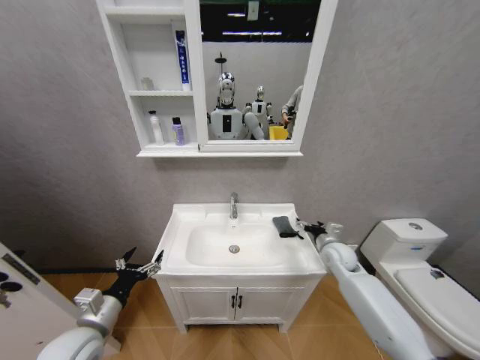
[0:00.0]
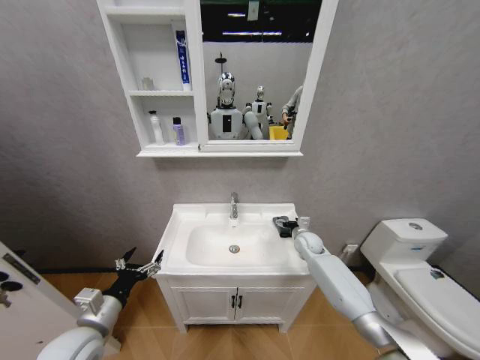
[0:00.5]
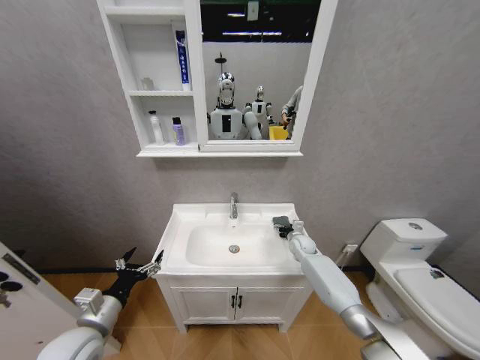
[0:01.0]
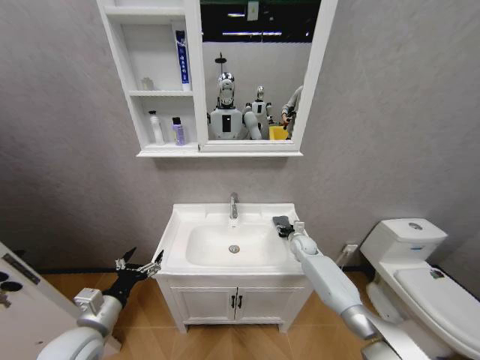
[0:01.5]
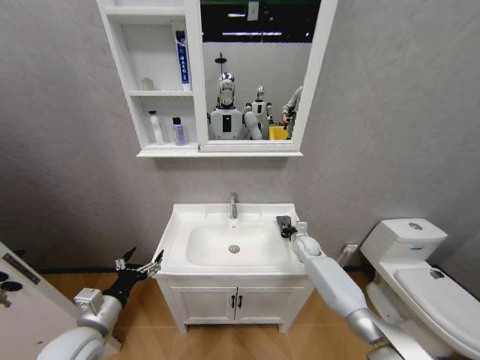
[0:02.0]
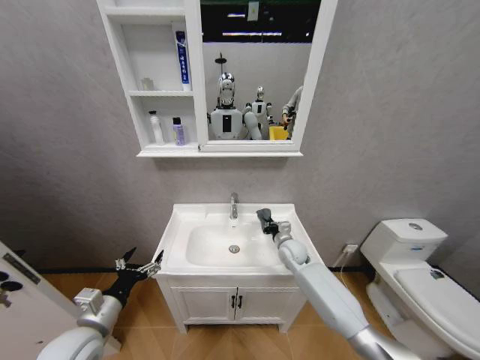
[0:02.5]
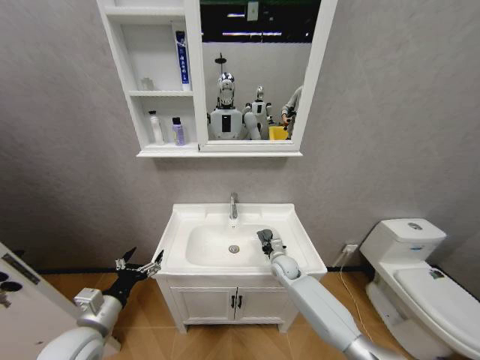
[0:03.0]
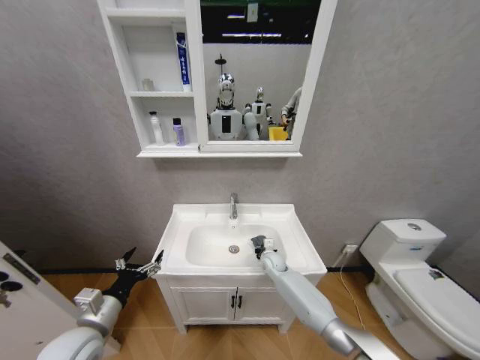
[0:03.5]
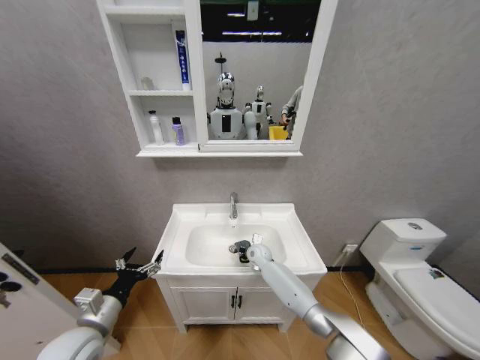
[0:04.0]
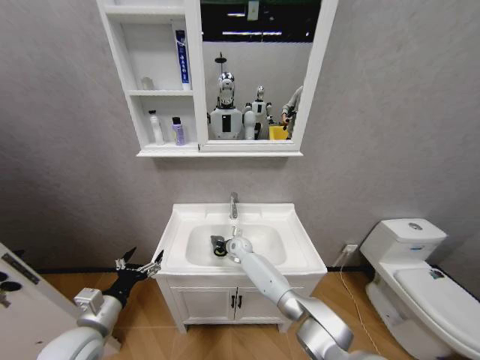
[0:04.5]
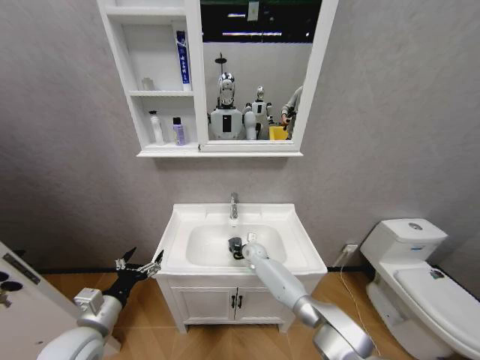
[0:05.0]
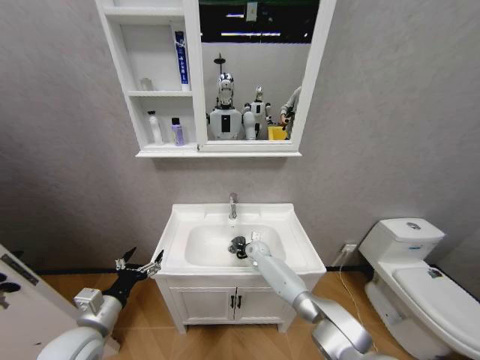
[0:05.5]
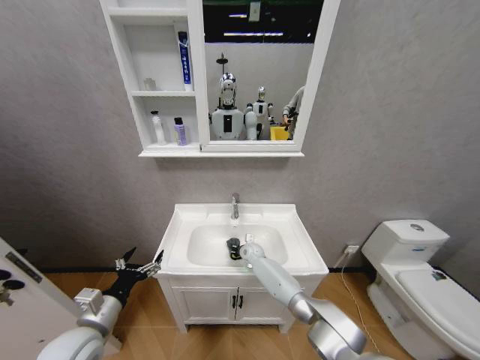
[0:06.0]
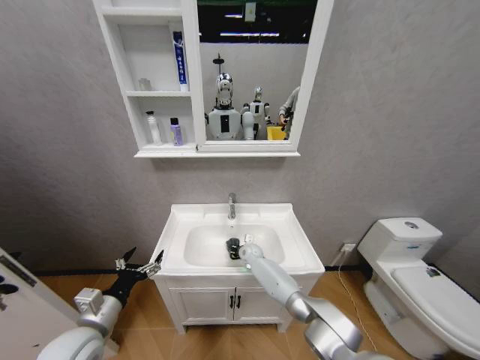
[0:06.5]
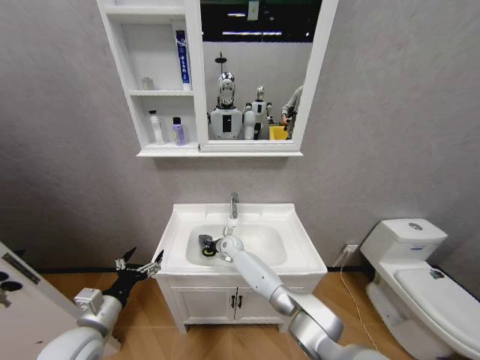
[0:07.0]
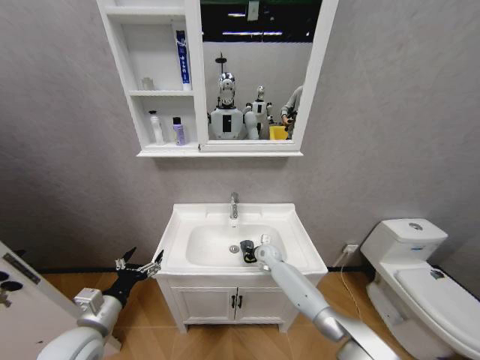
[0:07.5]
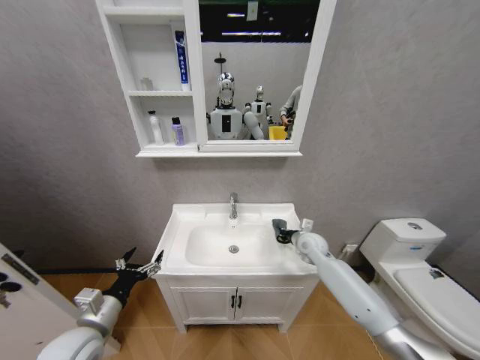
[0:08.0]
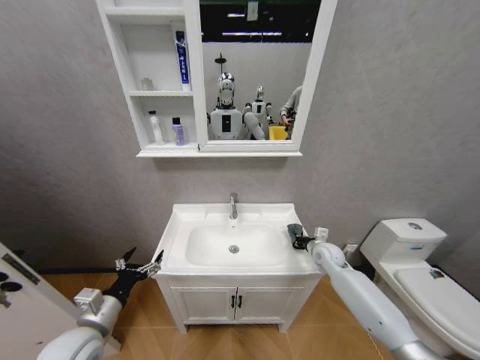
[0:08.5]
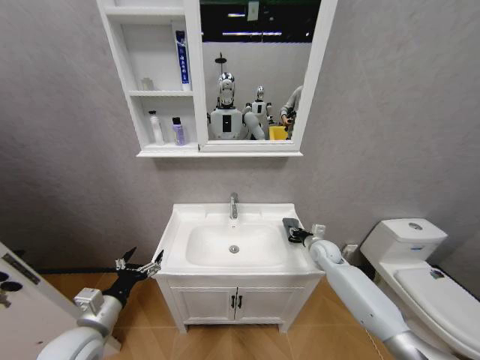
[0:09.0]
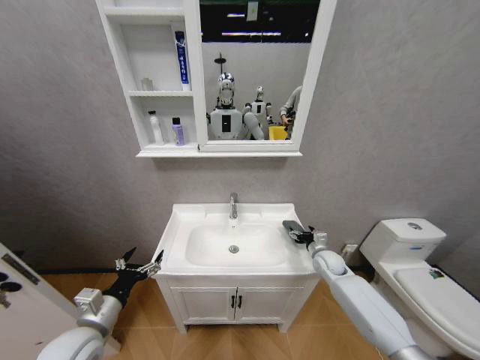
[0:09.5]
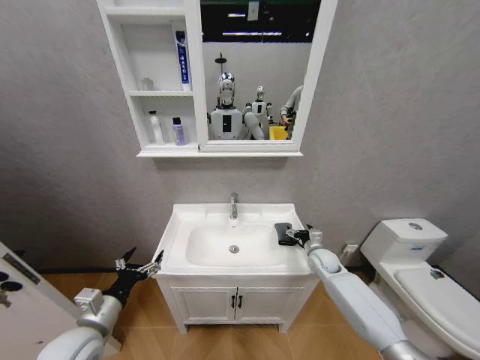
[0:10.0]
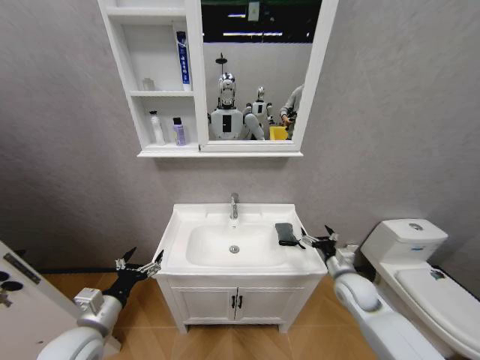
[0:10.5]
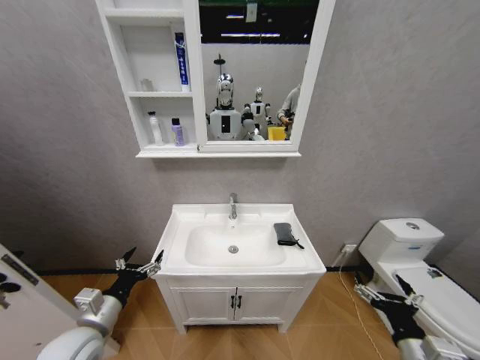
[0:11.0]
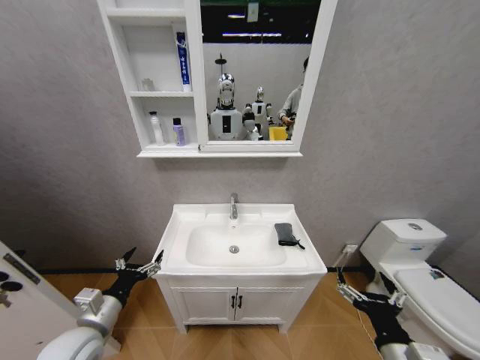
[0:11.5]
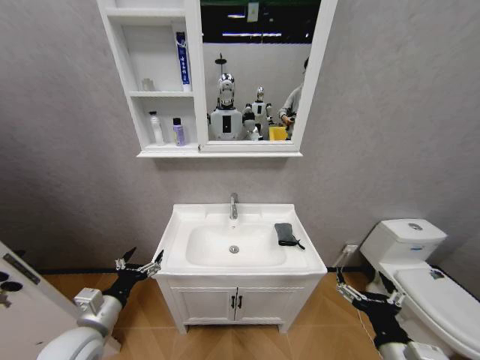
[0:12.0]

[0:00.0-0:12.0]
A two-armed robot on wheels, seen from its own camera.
Task of the whole recording: Move facial cleanser and shampoo from washbasin to cabinet, then wipe washbasin with towel.
0:00.0 to 0:02.0: The right gripper is displaced forward and downward by about 15 cm, and closes.
0:02.0 to 0:04.0: The right gripper travels to the left by some 20 cm.
0:04.0 to 0:06.0: The right gripper travels to the left and back again, roughly 10 cm each way.
0:06.0 to 0:08.0: The right gripper shifts roughly 25 cm to the right and upward.
0:08.0 to 0:10.0: The right gripper shifts about 5 cm downward, and opens.
0:10.0 to 0:12.0: The right gripper heads backward, covering approximately 35 cm.

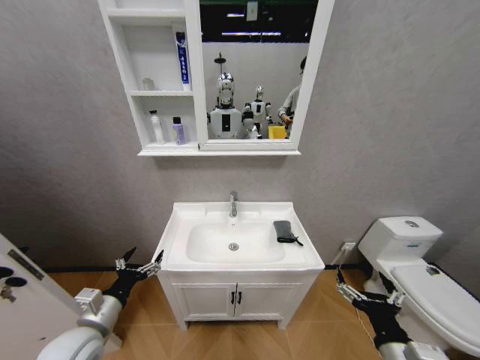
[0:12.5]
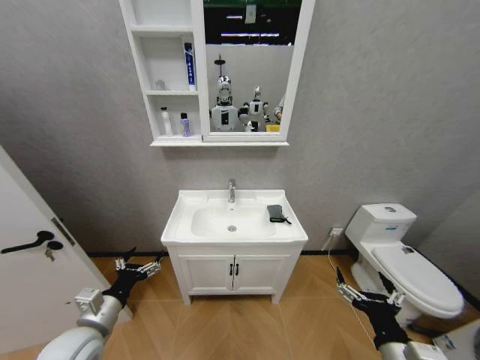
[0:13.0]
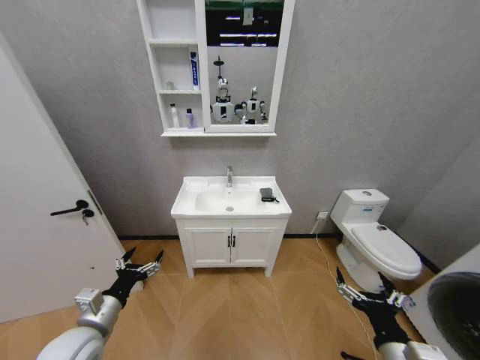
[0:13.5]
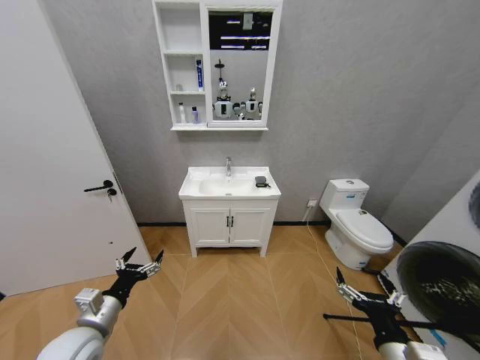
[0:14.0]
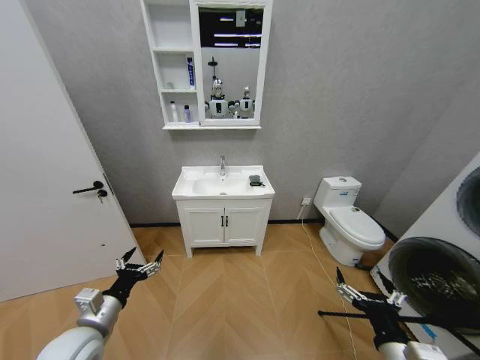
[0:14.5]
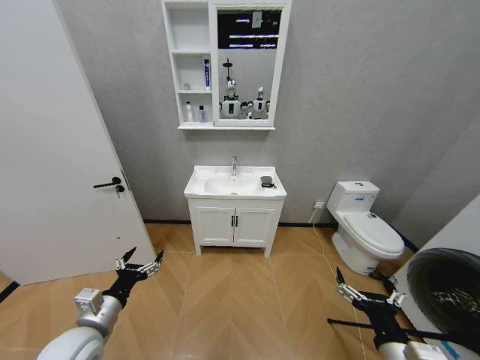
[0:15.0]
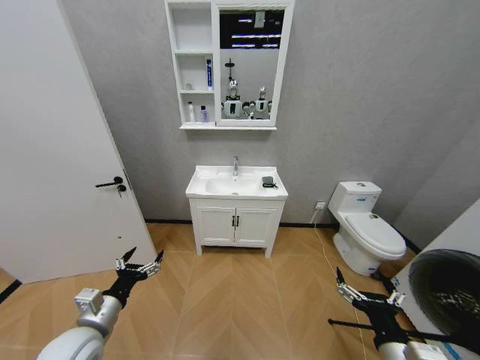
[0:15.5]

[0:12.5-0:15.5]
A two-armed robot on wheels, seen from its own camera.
Task of the whole recording: Move facial cleanser and shampoo from washbasin to cabinet, then wipe washbasin with towel.
0:14.0 to 0:15.5: Neither gripper changes place.

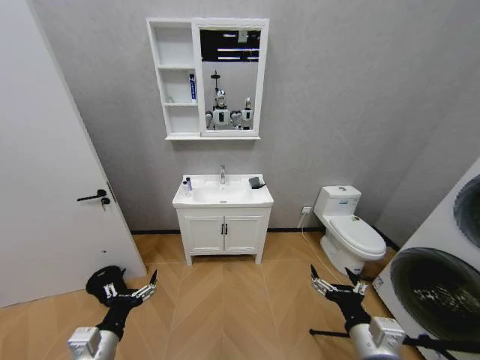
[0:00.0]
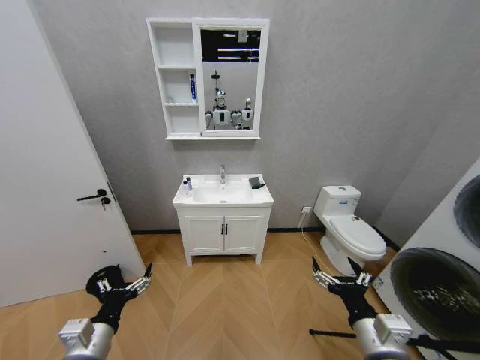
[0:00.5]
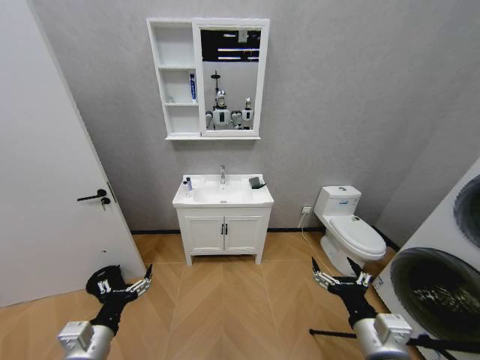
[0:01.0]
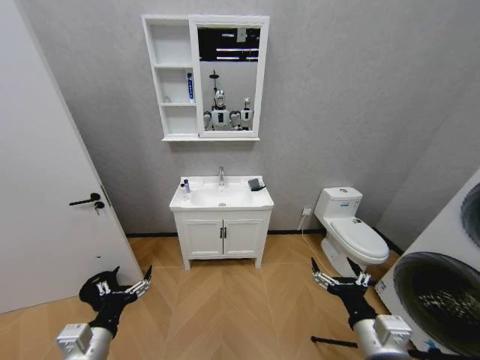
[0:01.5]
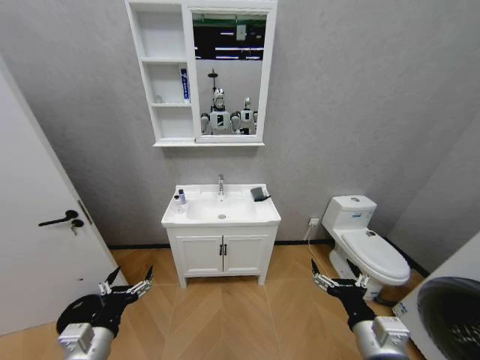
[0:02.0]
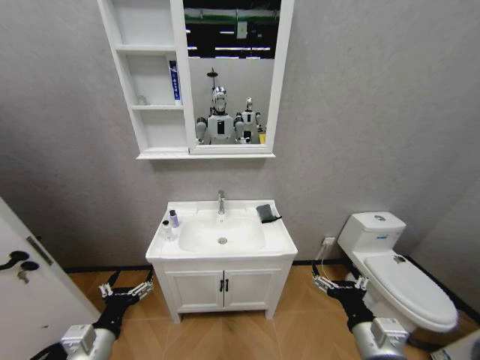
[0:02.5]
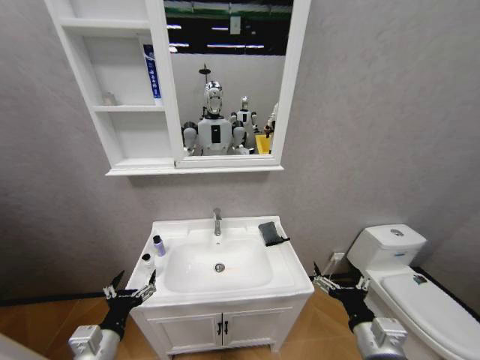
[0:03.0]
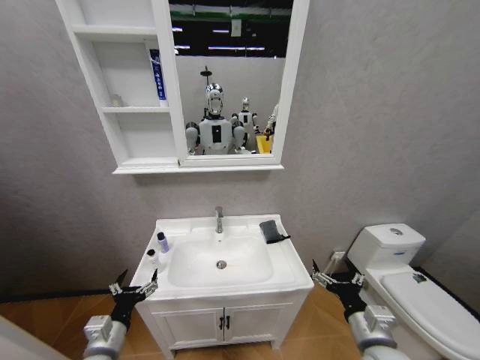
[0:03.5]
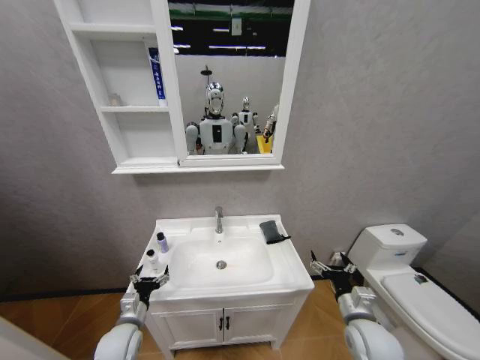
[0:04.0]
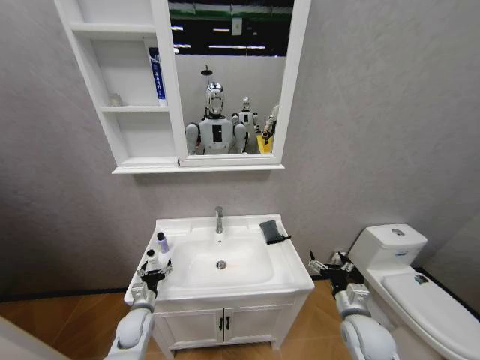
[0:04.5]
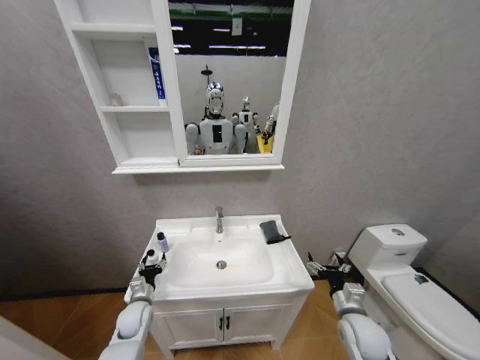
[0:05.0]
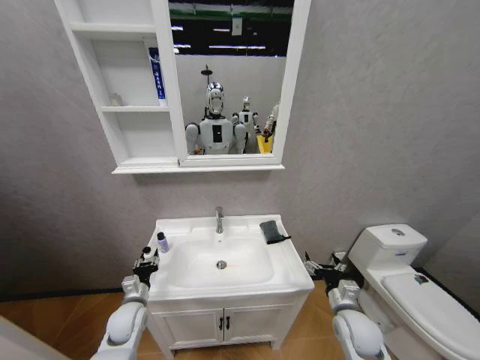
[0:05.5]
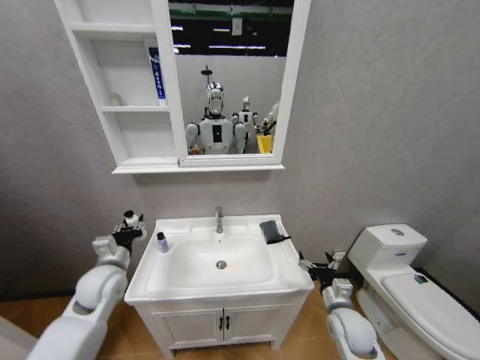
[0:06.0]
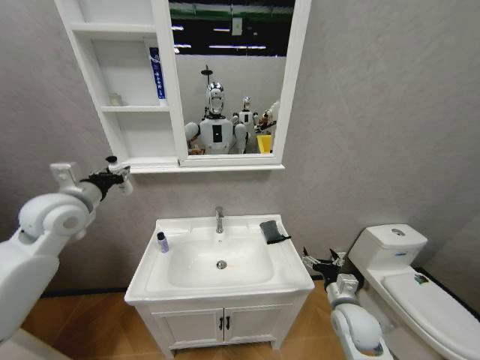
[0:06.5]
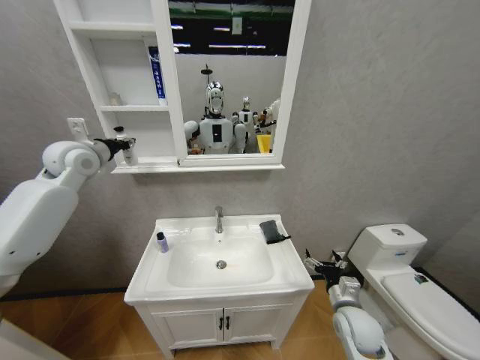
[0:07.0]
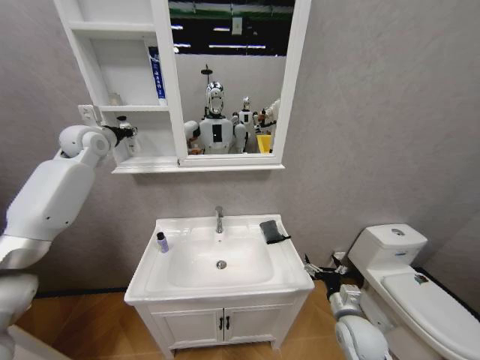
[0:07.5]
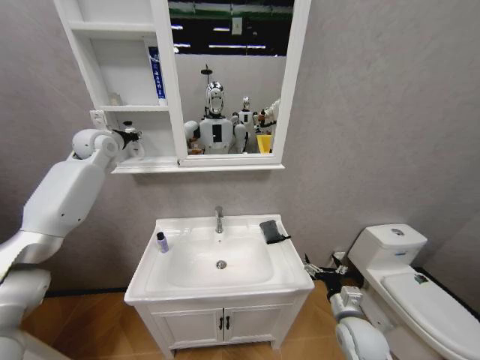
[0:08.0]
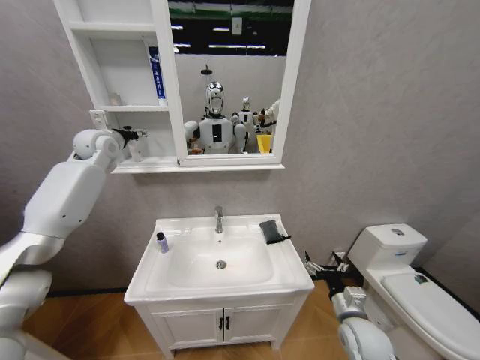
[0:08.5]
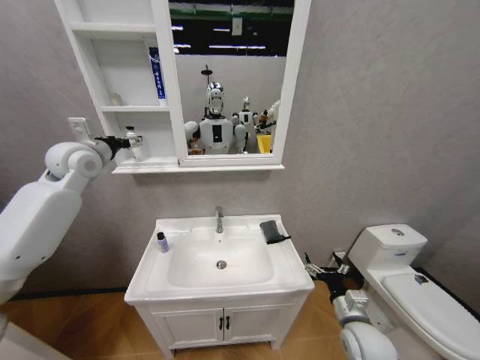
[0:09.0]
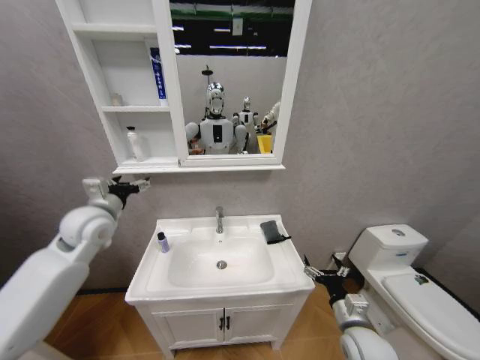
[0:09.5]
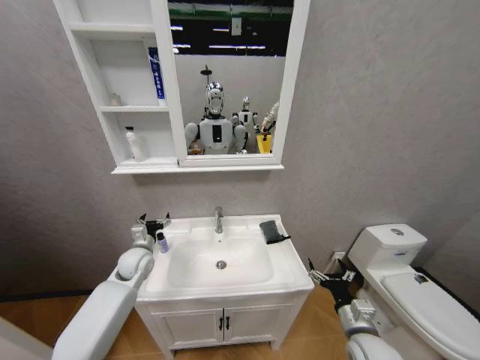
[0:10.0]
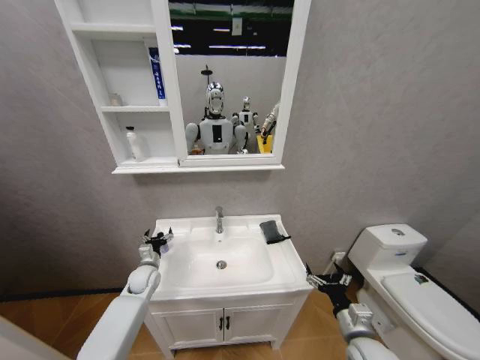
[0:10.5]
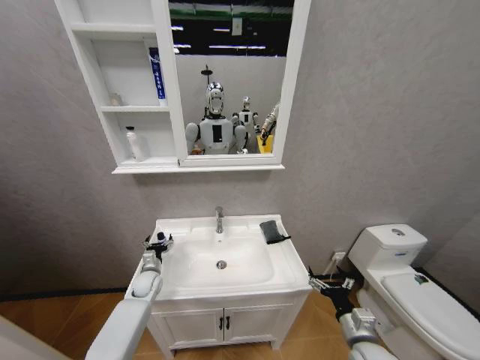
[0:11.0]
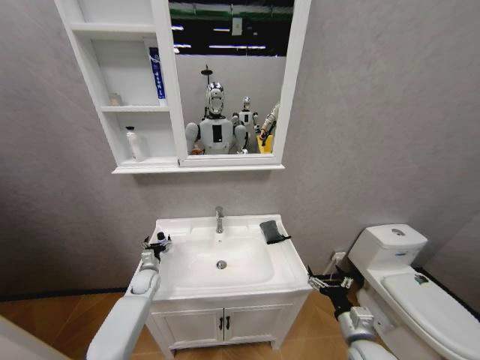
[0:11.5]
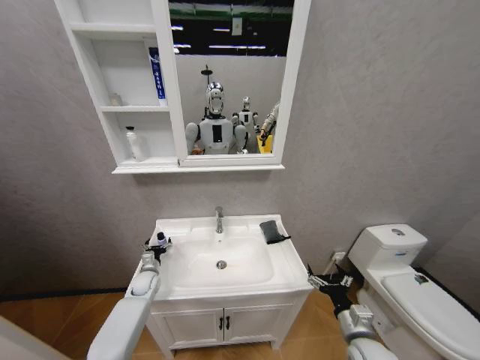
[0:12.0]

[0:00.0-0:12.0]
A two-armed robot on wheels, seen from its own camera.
Task of the whole recording: Move facial cleanser and shampoo from washbasin to cabinet, then wipe washbasin with towel.
0:02.0 to 0:04.0: The right gripper moves forward and downward, some 10 cm. Meanwhile the left gripper travels downward and forward by some 15 cm.
0:04.0 to 0:06.0: The right gripper ends up approximately 5 cm from where it was; the left gripper goes some 15 cm upward and forward, and closes.
0:06.0 to 0:08.0: The left gripper travels upward and forward by some 35 cm.
0:08.0 to 0:10.0: The left gripper heads downward and backward, covering approximately 35 cm, and opens up.
0:10.0 to 0:12.0: The left gripper is displaced downward by approximately 15 cm.
